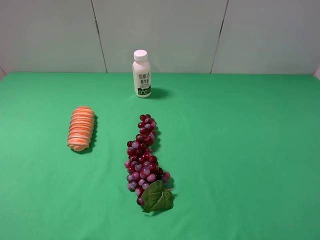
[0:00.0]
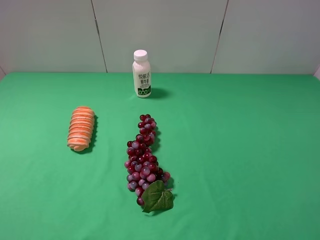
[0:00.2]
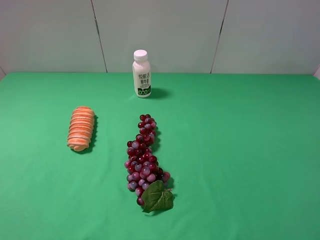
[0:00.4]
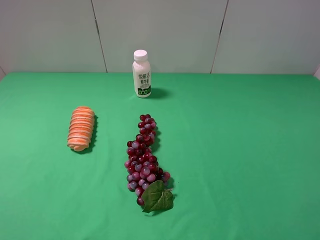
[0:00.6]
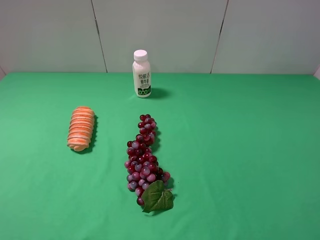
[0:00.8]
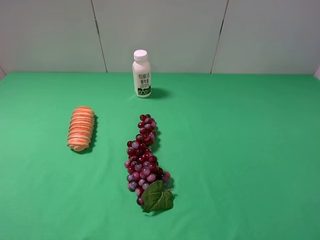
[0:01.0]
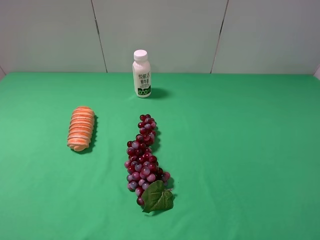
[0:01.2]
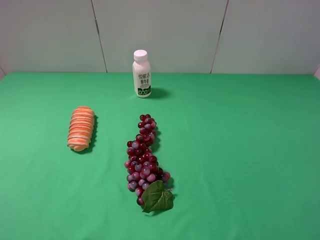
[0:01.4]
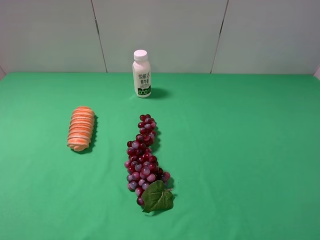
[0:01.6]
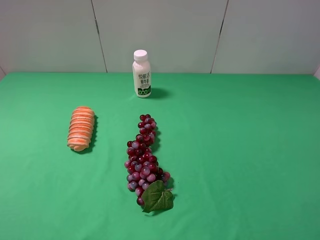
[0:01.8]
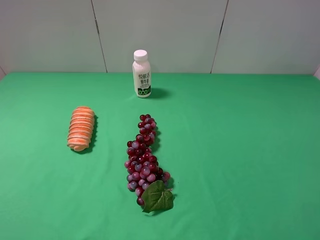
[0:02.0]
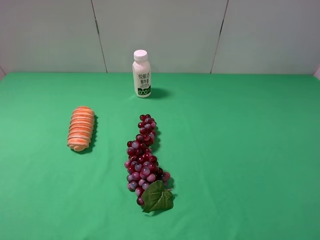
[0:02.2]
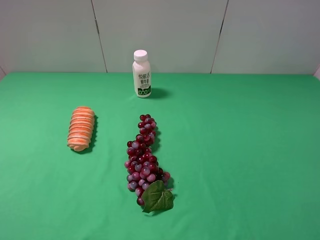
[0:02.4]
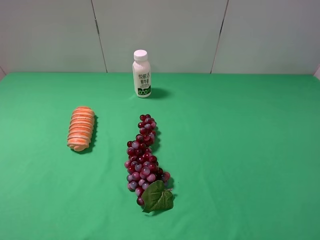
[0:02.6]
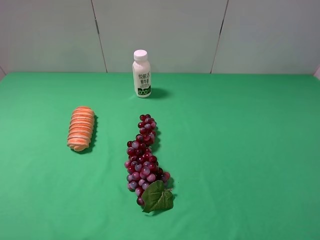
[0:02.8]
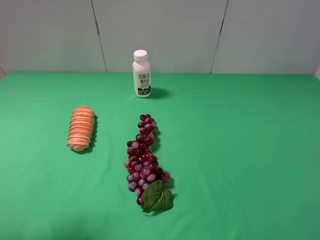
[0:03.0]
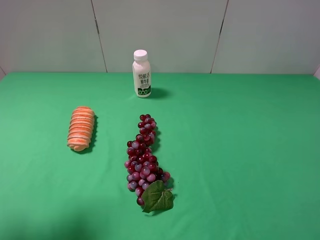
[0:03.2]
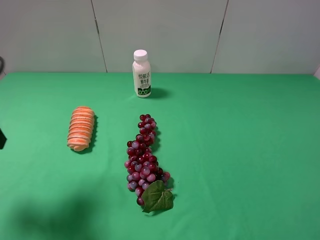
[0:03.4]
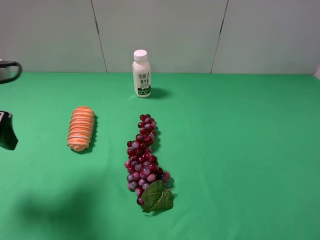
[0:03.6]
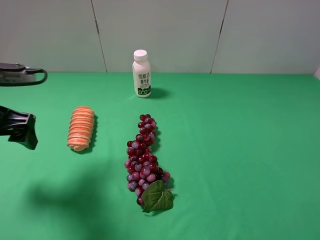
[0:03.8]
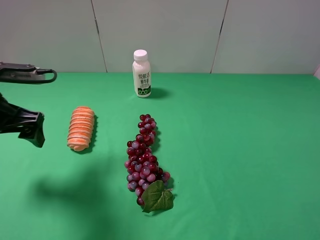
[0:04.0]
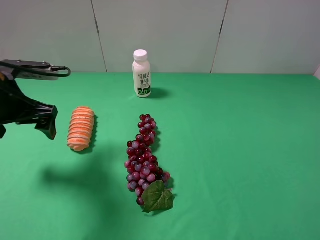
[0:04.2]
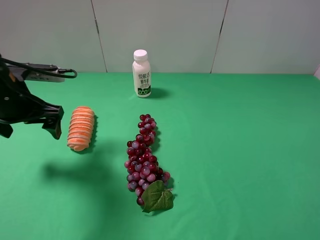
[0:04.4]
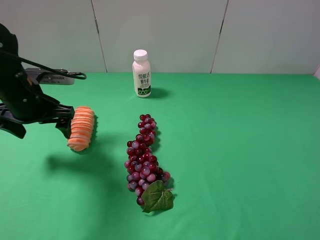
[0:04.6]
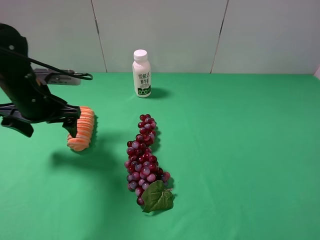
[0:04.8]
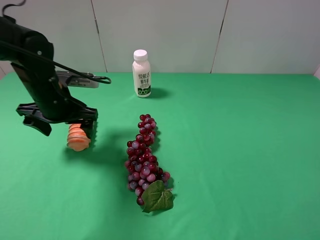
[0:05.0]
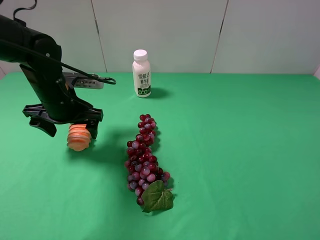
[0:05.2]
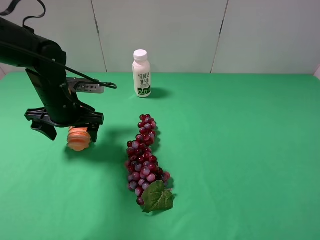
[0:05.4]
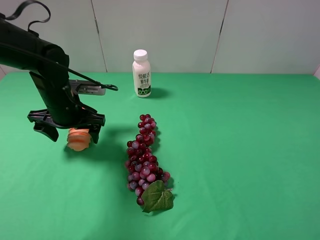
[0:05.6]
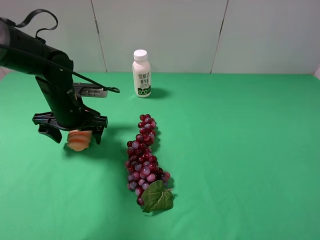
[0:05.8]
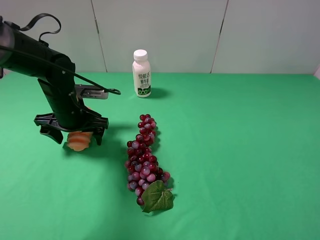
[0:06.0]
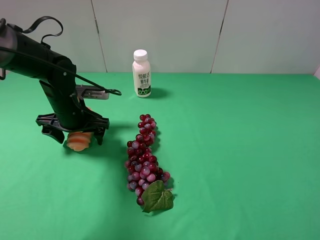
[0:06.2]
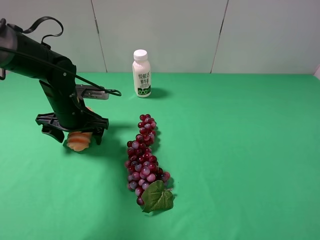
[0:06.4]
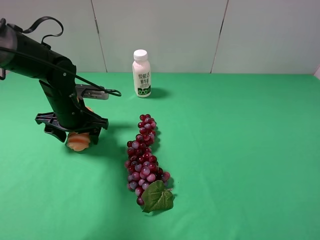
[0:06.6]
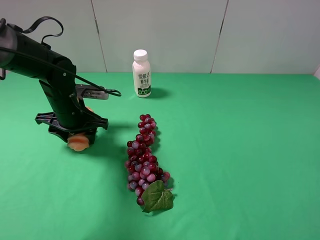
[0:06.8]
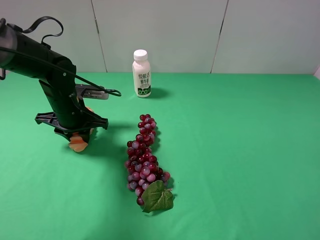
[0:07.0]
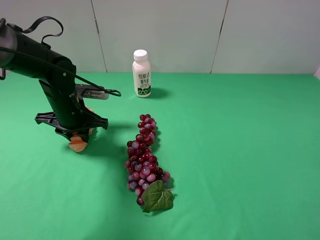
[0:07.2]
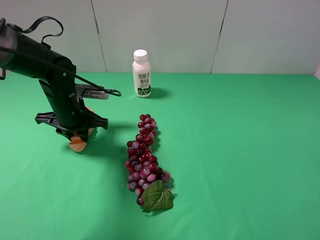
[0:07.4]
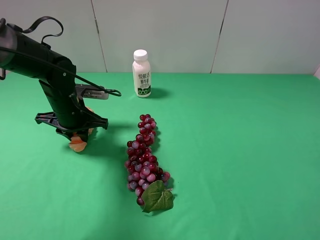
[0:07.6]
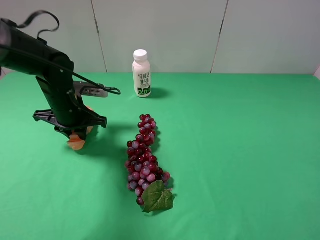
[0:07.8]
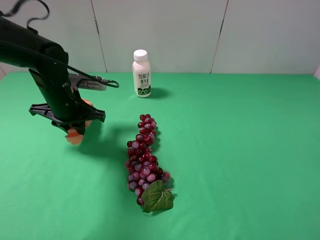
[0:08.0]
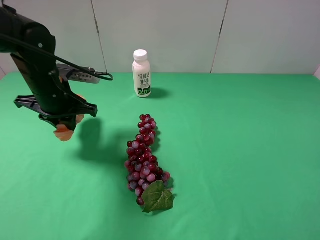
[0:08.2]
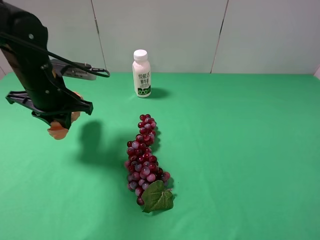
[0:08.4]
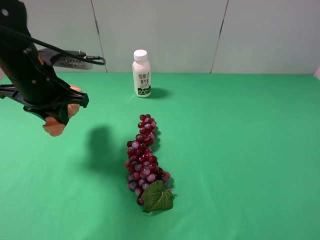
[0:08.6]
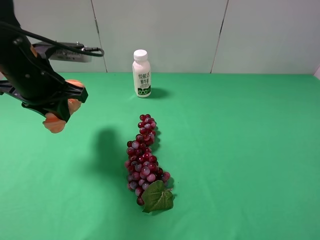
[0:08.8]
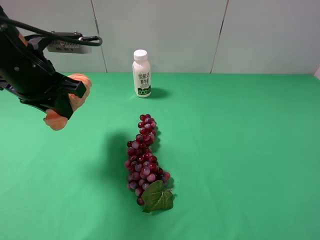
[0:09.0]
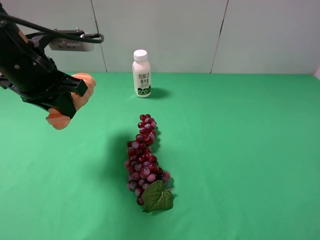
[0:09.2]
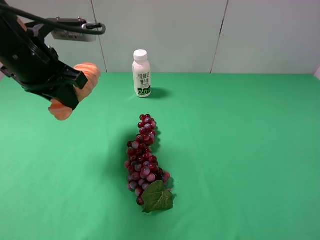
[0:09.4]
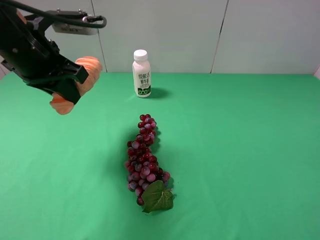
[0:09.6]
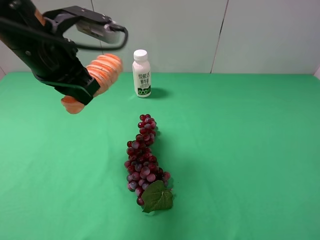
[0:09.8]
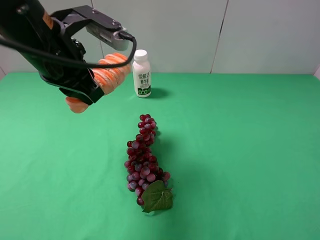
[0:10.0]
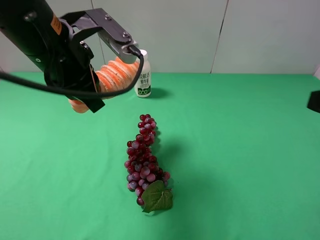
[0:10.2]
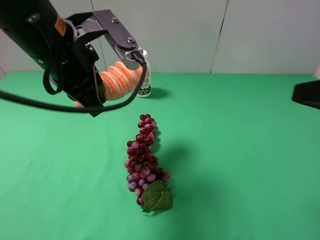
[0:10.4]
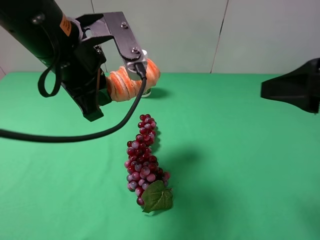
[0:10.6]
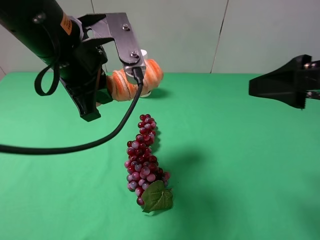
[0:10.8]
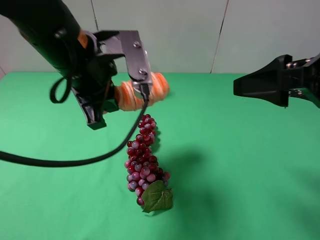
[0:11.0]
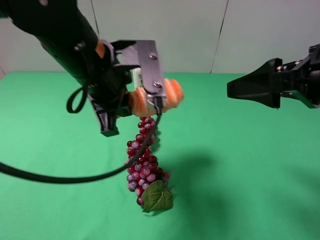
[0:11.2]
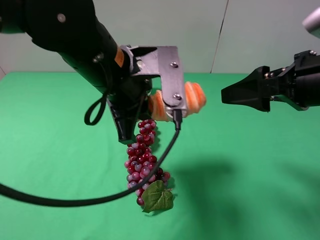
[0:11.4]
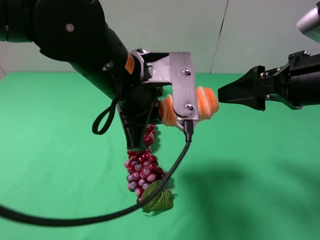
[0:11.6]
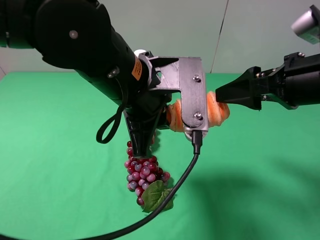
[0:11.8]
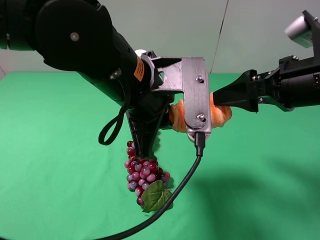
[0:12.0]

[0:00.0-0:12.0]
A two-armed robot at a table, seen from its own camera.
Task of the whole recording: use the left gripper to pick up the item and transfer it from the left gripper to the right gripper.
Step, 0:00.0 to 0:07.0: Use the left gripper to grab the long bread on the left side of the table.
0:00.0 to 0:01.6: The two grippers keep their place.
0:01.6 to 0:03.0: The left gripper moves forward, about 10 cm.
0:03.0 to 0:04.4: The left gripper moves forward, downward and to the right, approximately 20 cm.
0:04.4 to 0:06.0: The left gripper is displaced downward and to the right by some 10 cm.
0:06.0 to 0:07.6: The left gripper closes up.
0:07.6 to 0:09.0: The left gripper travels upward and backward by approximately 15 cm.
0:09.0 to 0:10.4: The left gripper heads to the right, covering roughly 10 cm. The right gripper shifts about 10 cm forward.
0:10.4 to 0:12.0: The left gripper goes approximately 10 cm to the right, while the right gripper is displaced forward by some 10 cm.

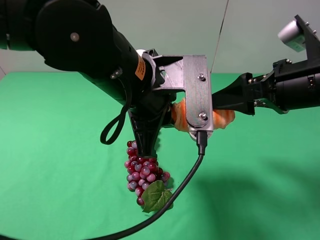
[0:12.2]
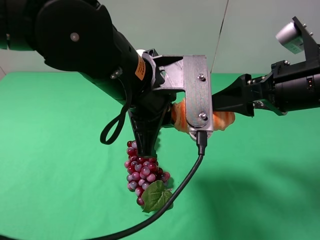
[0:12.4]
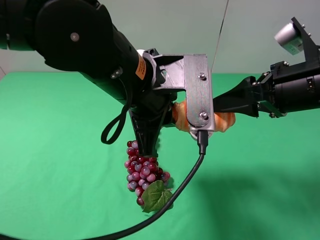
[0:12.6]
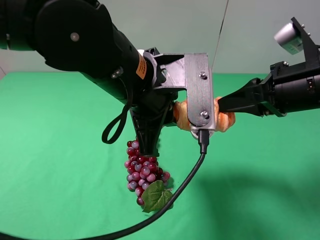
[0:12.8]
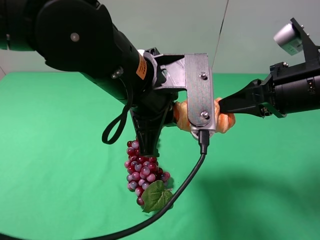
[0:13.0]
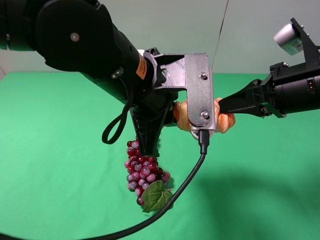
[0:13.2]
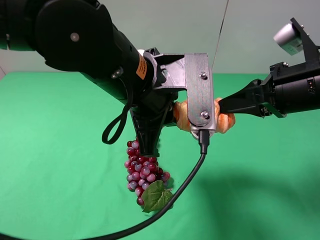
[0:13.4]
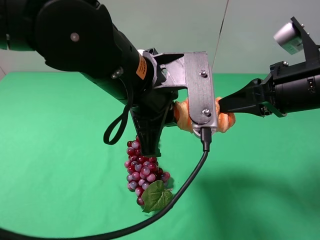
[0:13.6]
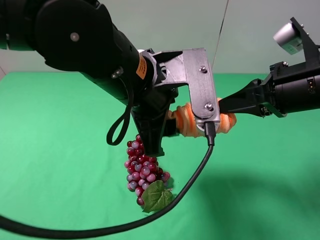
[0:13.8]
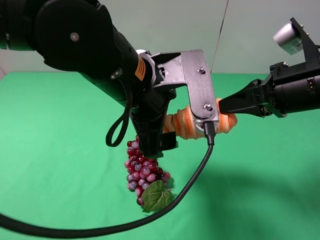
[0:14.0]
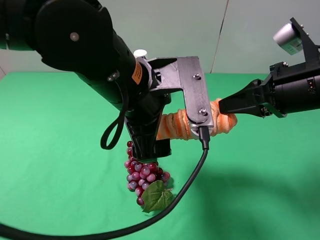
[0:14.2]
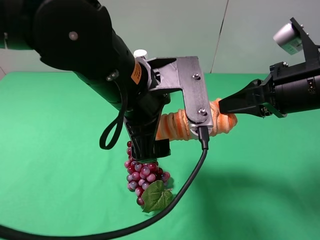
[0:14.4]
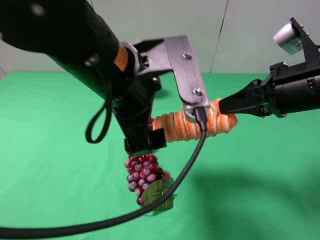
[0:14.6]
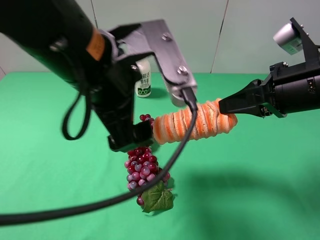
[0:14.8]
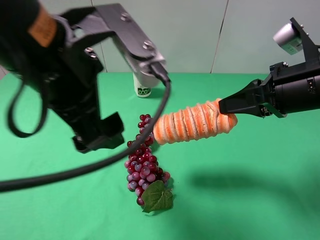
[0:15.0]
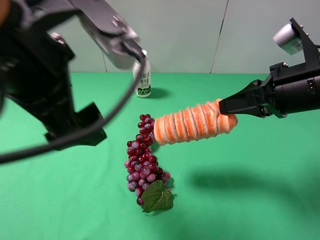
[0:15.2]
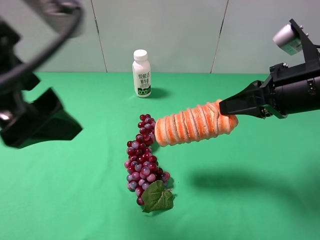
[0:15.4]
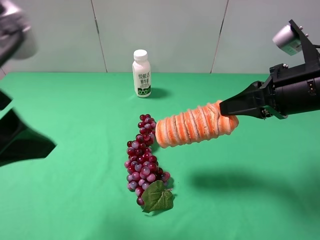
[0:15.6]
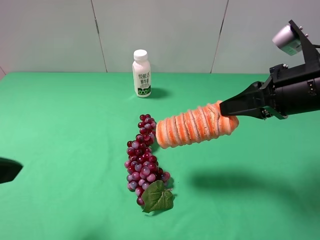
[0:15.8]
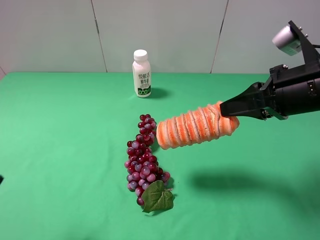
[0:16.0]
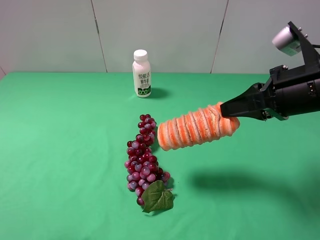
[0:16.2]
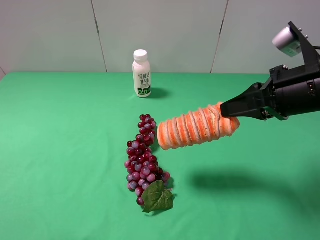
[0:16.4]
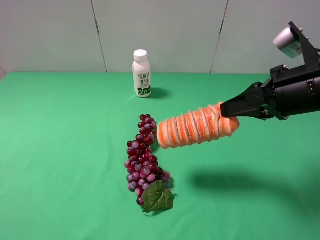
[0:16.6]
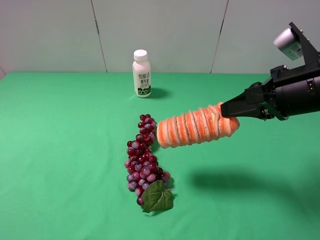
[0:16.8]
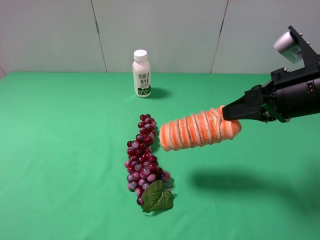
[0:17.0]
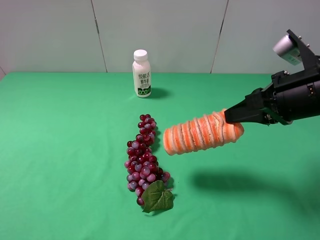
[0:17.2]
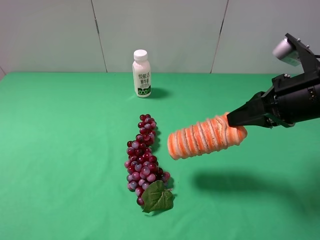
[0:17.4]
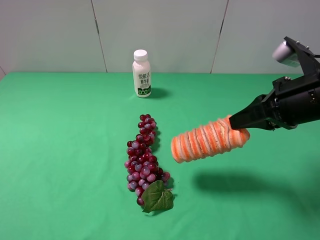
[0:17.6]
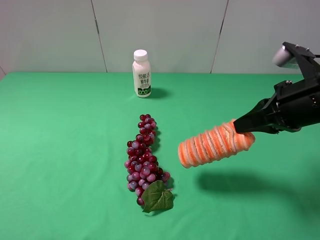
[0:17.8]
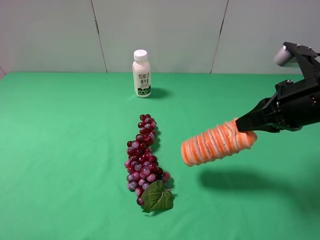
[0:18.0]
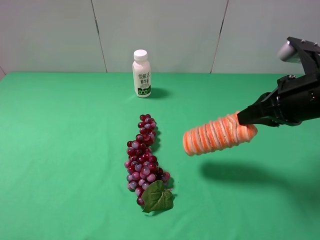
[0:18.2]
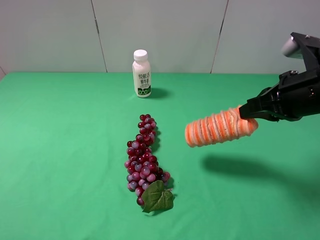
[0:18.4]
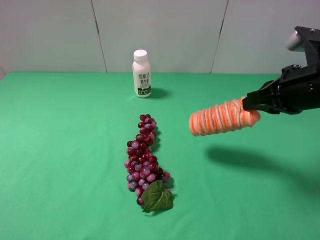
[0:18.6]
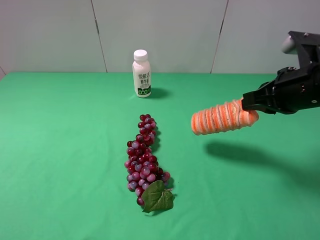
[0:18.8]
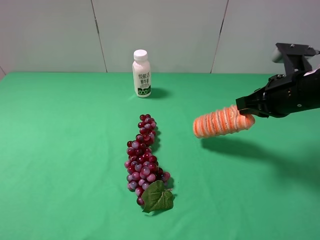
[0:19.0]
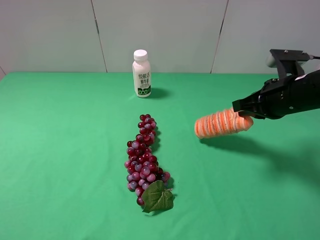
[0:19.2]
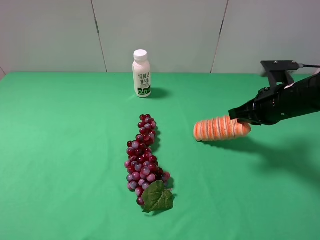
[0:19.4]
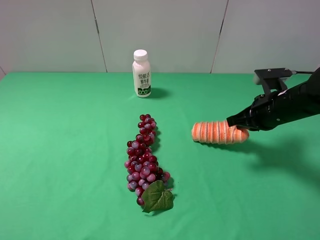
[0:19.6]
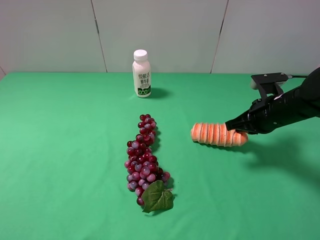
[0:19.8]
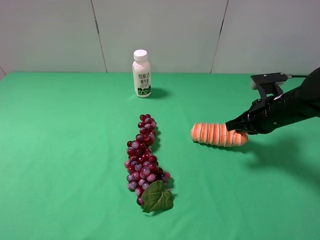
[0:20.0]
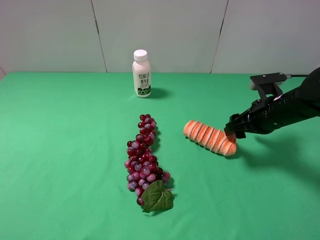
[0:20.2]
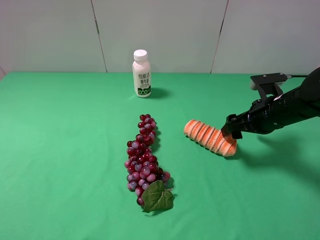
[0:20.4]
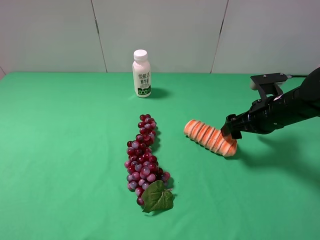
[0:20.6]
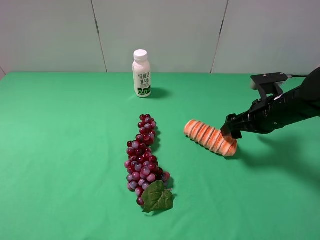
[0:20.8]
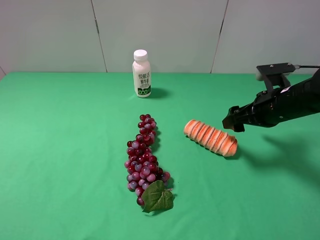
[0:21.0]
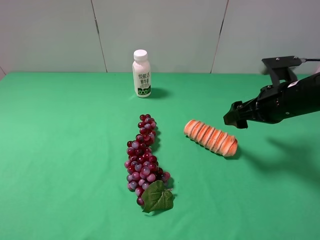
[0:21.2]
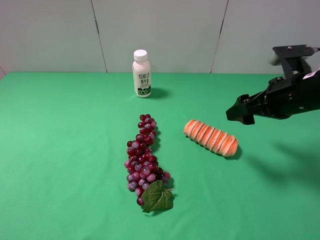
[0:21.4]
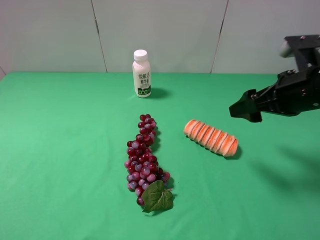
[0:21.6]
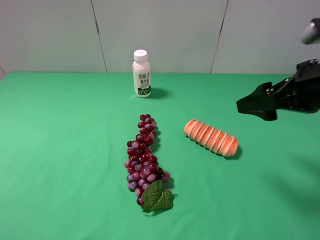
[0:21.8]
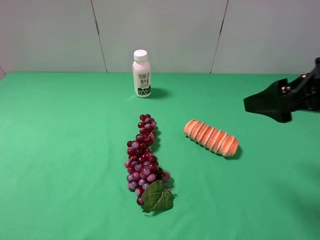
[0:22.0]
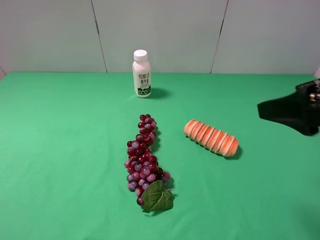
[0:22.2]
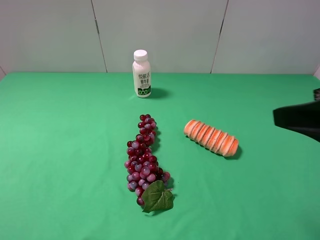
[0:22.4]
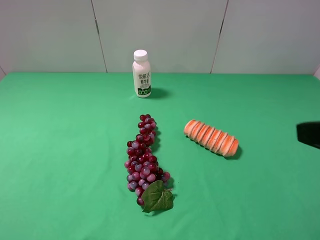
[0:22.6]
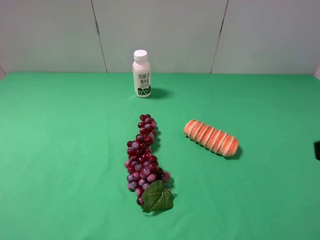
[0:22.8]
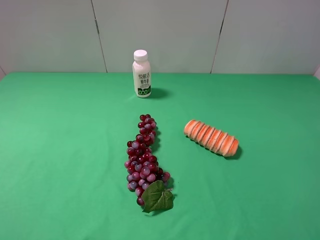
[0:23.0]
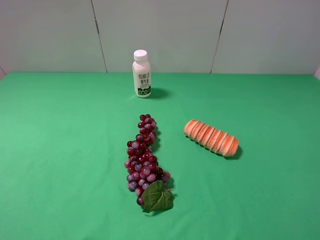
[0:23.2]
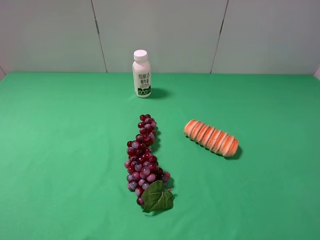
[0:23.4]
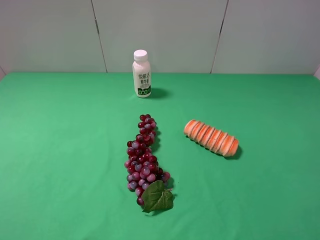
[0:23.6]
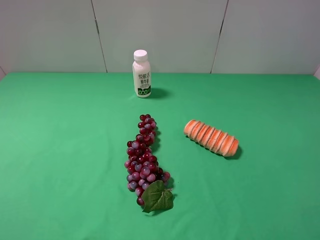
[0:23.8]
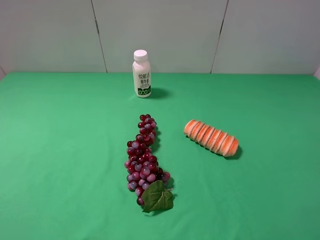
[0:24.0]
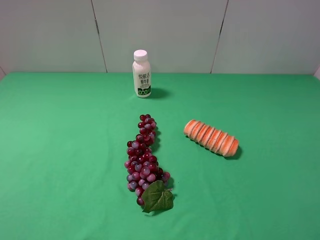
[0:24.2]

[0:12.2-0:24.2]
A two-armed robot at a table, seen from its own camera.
Task of the whole recording: use the left gripper to pick up the item and transfer it from the left gripper to the right gripper.
Step, 0:12.2 to 0:14.2: Pass the long bread to the right gripper.
Step, 0:14.4 to 0:20.8: The right gripper places long bread on the right side of the table.
0:12.2 to 0:13.8: The left gripper opens up; the right gripper closes.
0:13.8 to 0:15.2: The left gripper moves to the left and upward, about 15 cm.
0:15.2 to 0:16.6: The left gripper shifts some 20 cm to the left and backward.
0:18.2 to 0:19.8: The right gripper moves downward and forward, about 10 cm.
0:19.8 to 0:21.2: The right gripper opens its fingers.
0:21.2 to 0:22.6: The right gripper moves backward and upward, about 20 cm.
0:22.6 to 0:24.2: The right gripper shifts roughly 5 cm backward.
